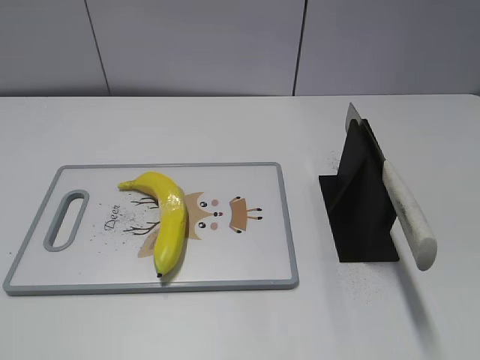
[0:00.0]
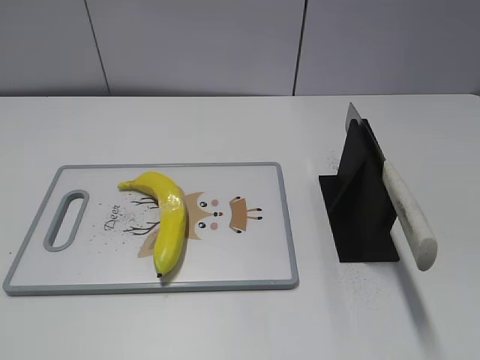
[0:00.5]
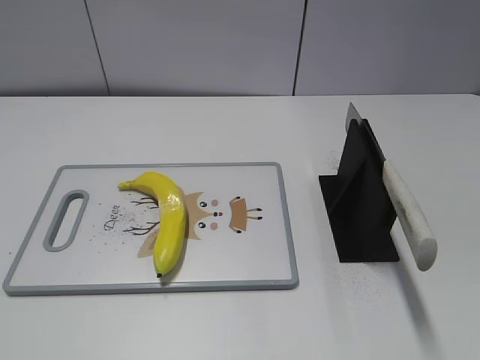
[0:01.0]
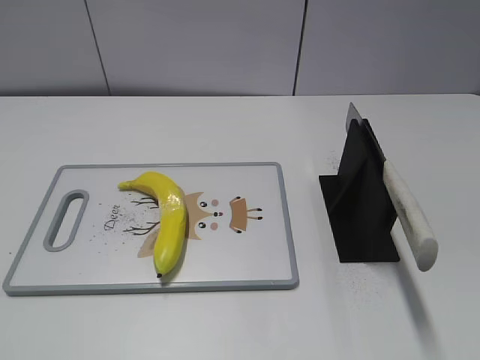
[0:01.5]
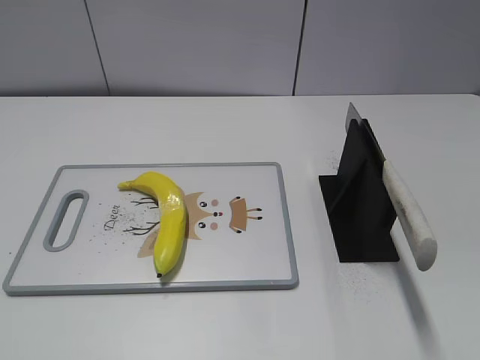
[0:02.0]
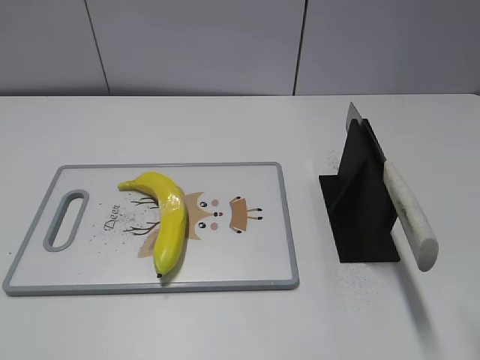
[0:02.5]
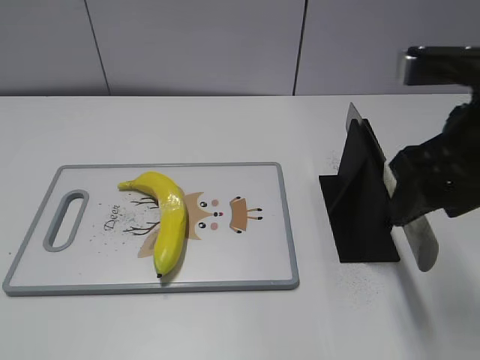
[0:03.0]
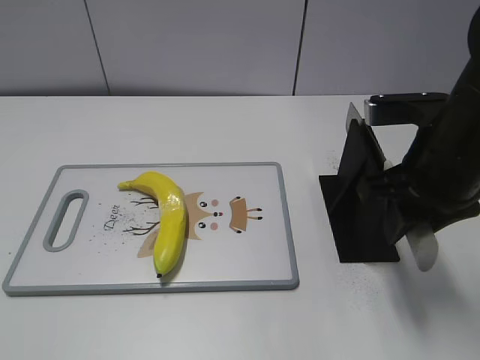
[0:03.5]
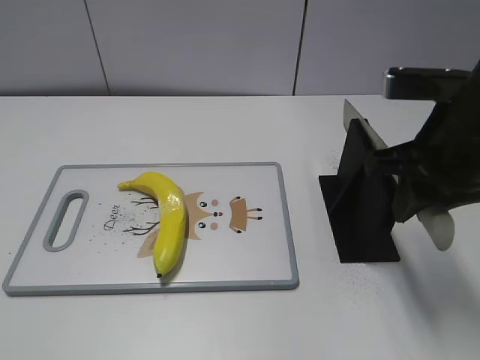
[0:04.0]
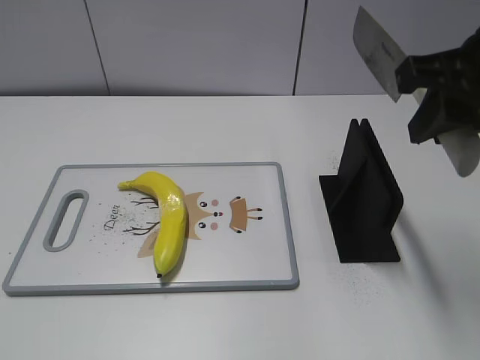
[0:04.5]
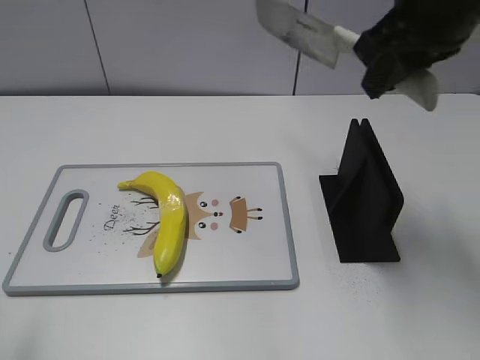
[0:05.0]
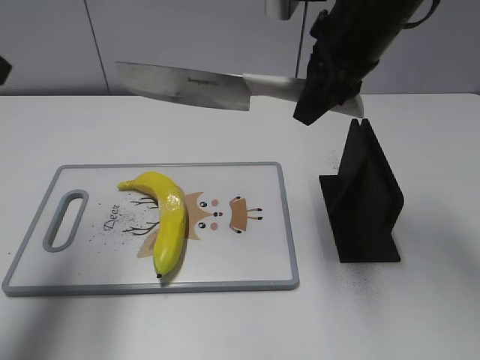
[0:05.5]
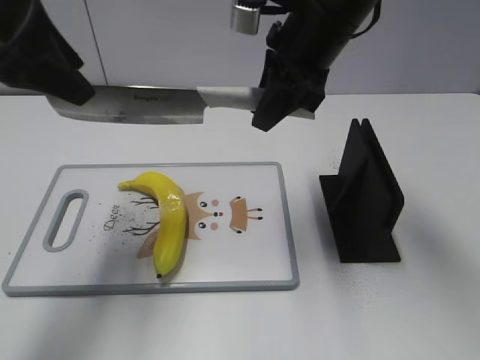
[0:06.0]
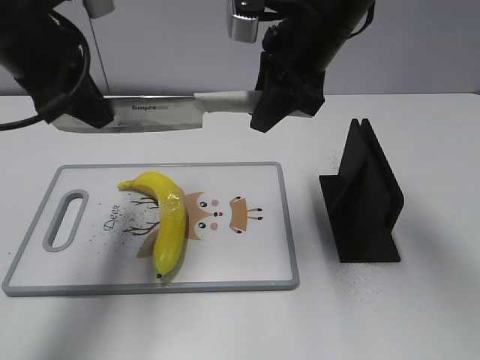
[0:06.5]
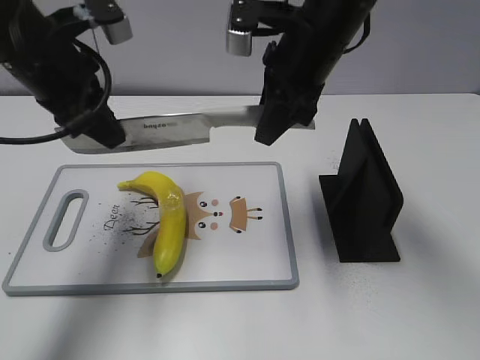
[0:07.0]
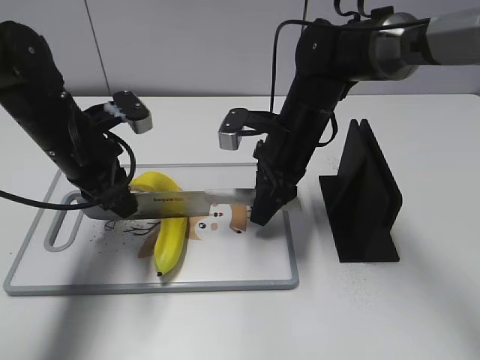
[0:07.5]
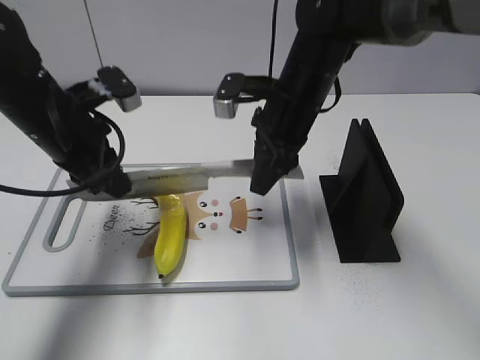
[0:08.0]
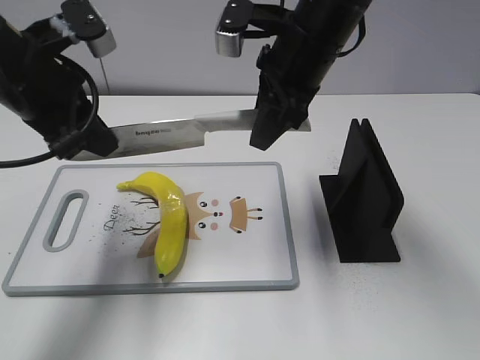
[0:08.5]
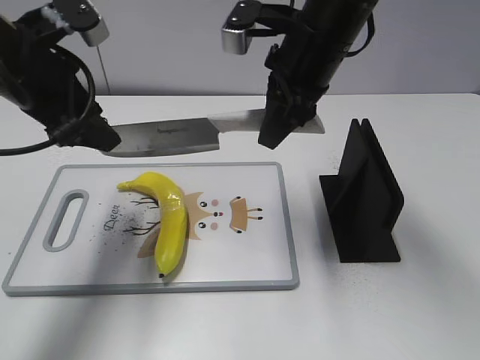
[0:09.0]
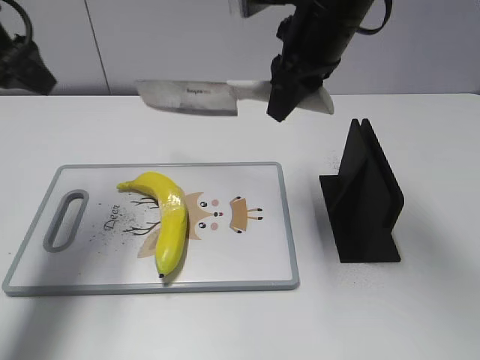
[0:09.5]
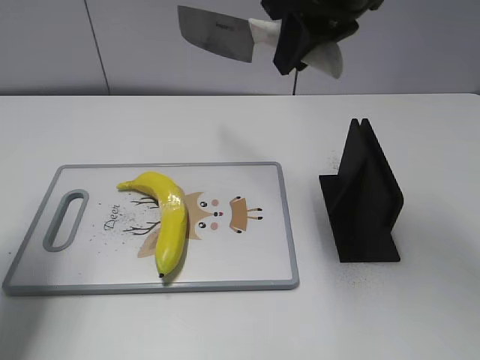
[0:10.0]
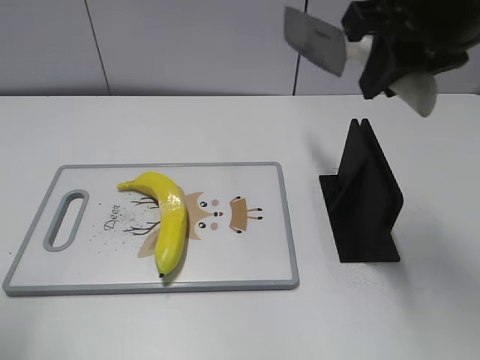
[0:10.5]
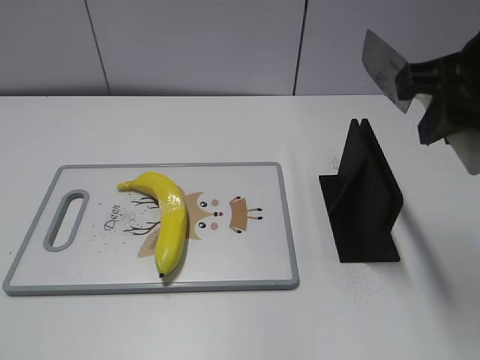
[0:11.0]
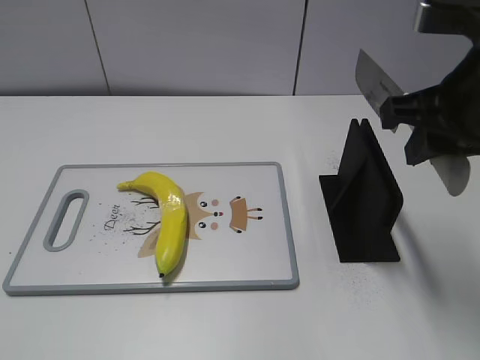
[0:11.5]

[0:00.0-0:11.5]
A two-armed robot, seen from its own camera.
Task of the whole recording: cut plastic banana.
Step, 0:00.0 to 0:04.5: Grab the knife handle with your right hand.
Step, 0:05.0 to 0:08.0: Lift the knife with your right hand.
Step, 0:08.5 to 0:09.0: Cut the banana with your left hand.
Step, 0:09.5 to 0:11.0: Lift the knife with your right hand.
0:02.0 to 0:04.0: The right gripper shifts about 20 cm forward, to the left and downward, and closes up.
0:04.0 to 0:06.0: The right gripper is displaced forward and to the left by roughly 15 cm, while the left gripper travels forward by roughly 30 cm.
0:06.0 to 0:07.5: Both grippers travel together downward, some 15 cm. The left gripper closes up.
0:07.5 to 0:09.5: The right gripper moves upward, some 15 cm; the left gripper shifts some 15 cm upward and to the left, and opens its fingers.
0:09.5 to 0:11.5: The right gripper is displaced backward and to the right by about 15 cm. The left gripper shifts roughly 30 cm backward.

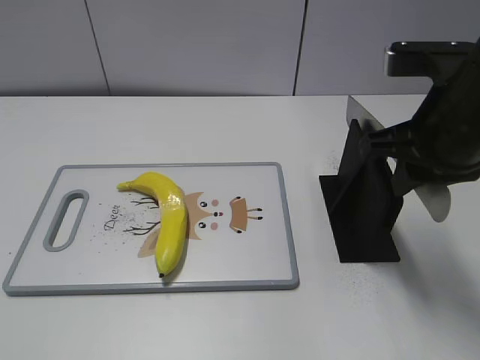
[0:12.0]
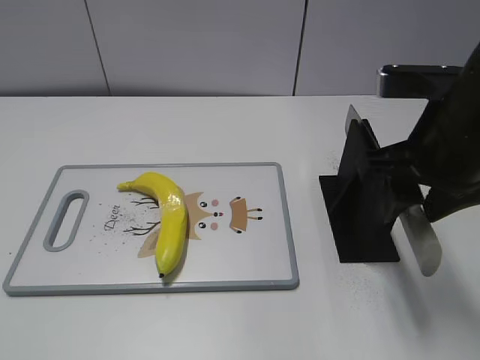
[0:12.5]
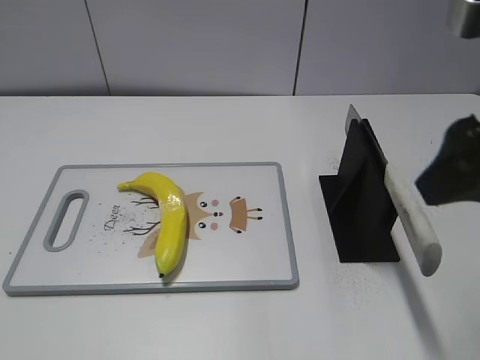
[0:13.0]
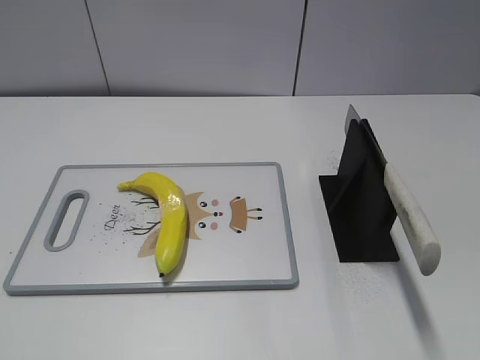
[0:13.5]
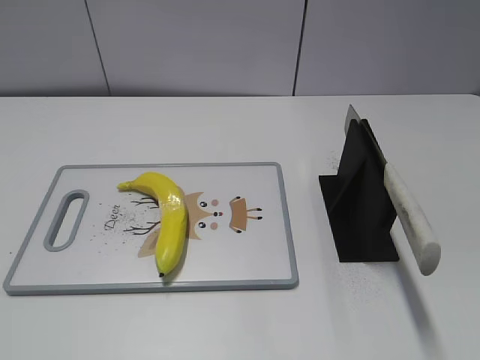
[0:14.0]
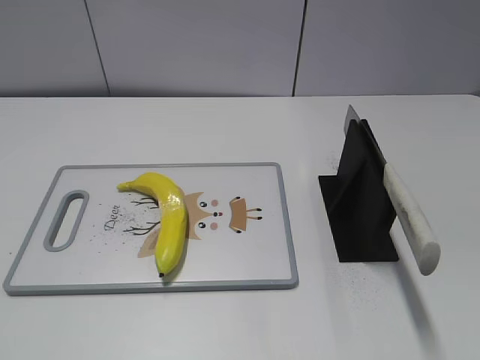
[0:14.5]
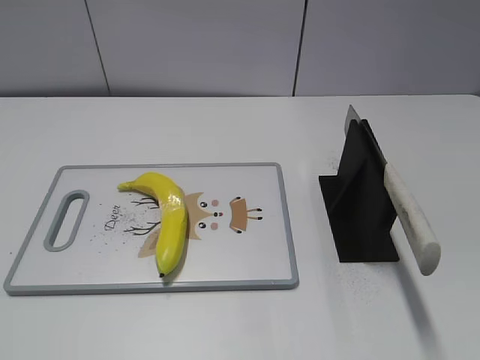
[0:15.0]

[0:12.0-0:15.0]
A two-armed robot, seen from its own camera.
Task of the whole recording: cut plastic banana.
Step, 0:12.0 to 0:15.0: Place the knife on the storage rack with your right hand.
0:12.0 to 0:13.5: The right gripper moves backward and to the right, approximately 20 cm, and opens its fingers.
